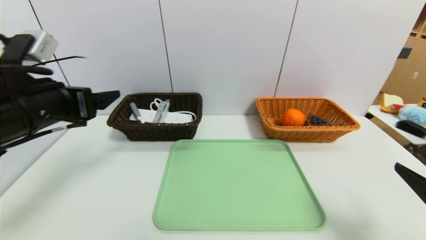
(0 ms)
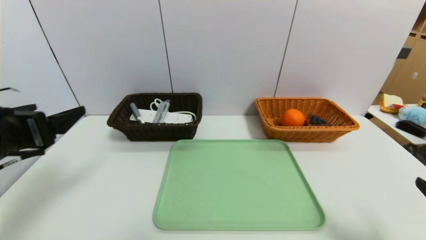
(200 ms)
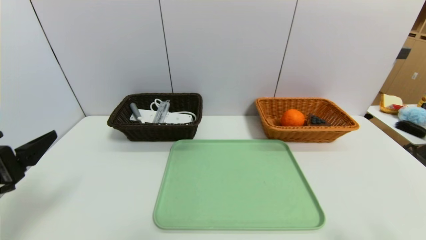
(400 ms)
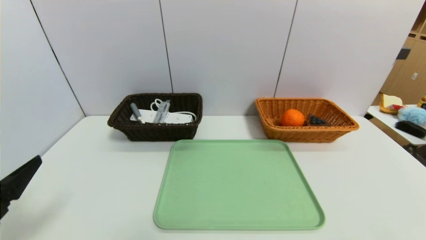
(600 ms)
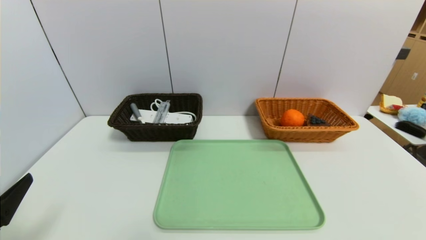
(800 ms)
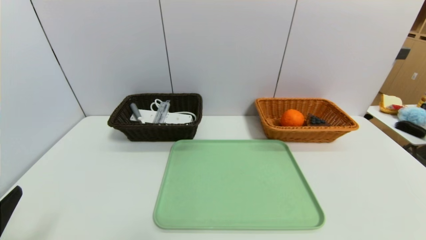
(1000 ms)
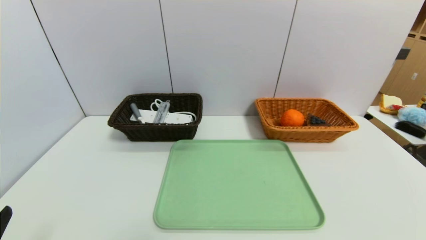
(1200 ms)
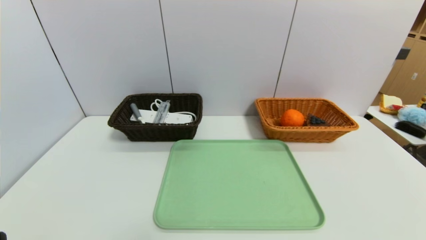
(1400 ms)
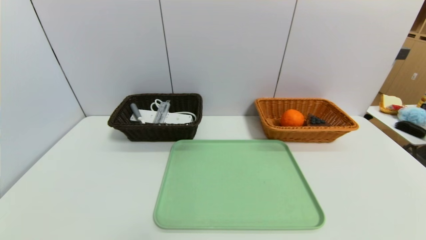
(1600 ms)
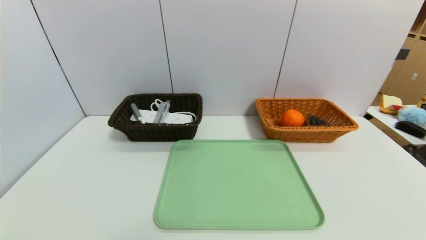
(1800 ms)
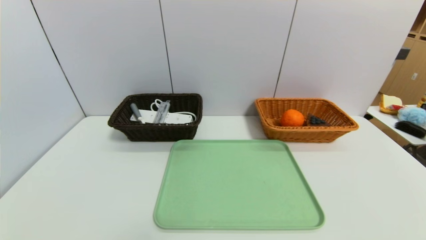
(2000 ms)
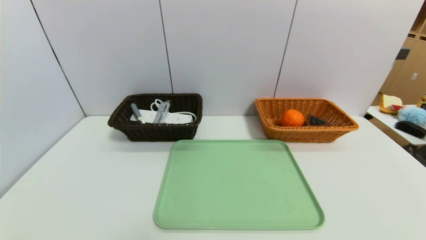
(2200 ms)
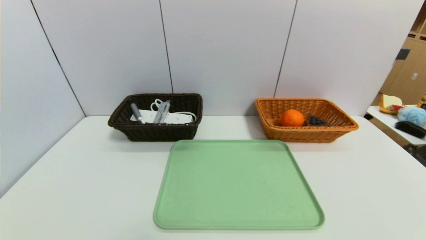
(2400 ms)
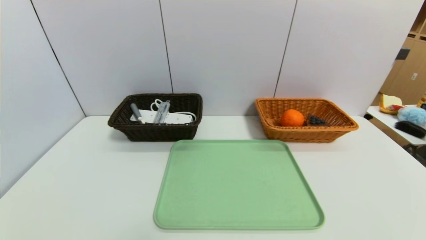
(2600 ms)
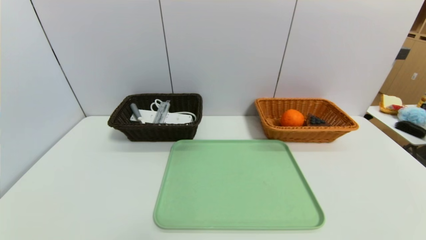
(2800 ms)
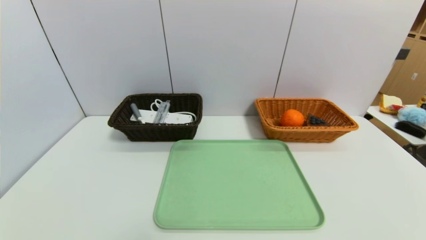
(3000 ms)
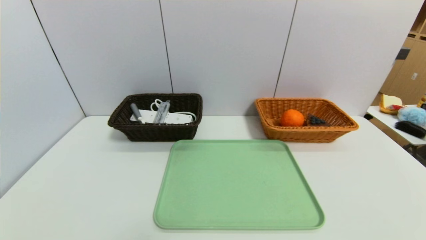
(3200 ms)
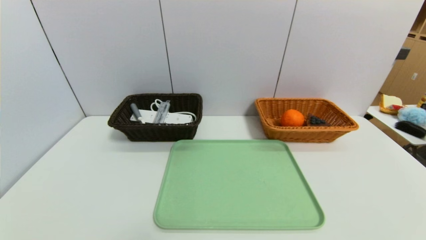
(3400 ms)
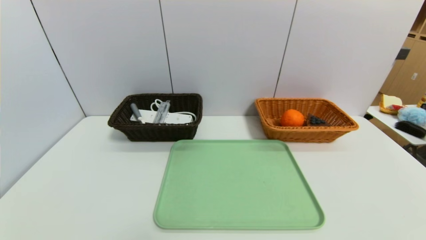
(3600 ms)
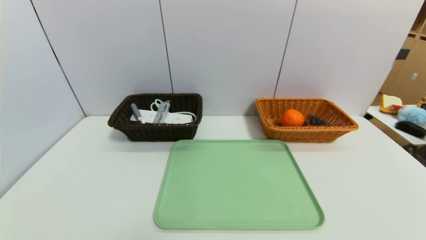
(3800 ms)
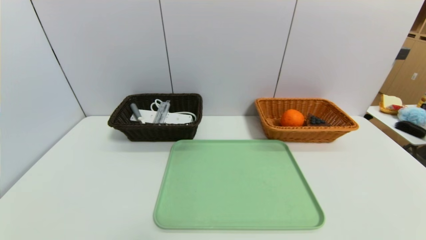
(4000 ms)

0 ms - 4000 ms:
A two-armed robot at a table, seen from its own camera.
Task of the whole recording: place the food in the right basket with the right gripper, and place the non food items in the left basket with the left gripper.
0 ms - 1400 ms: The right gripper heads backward, covering roughly 15 cm. The left gripper moves backward and downward, about 25 cm.
